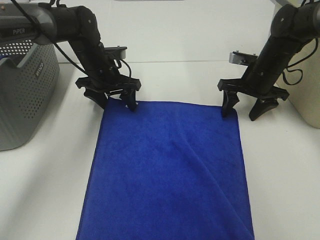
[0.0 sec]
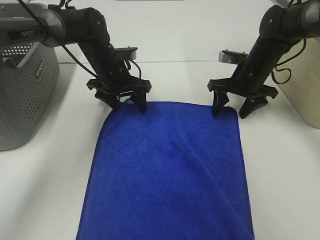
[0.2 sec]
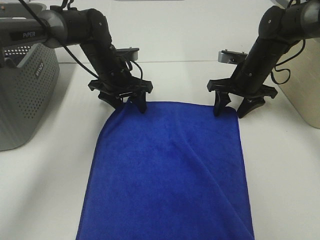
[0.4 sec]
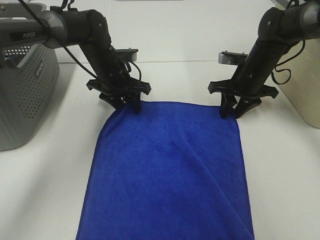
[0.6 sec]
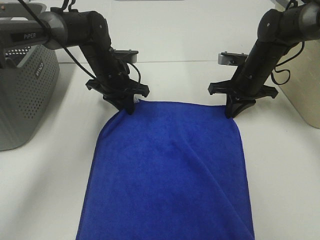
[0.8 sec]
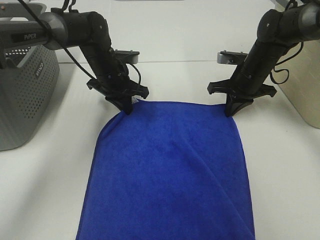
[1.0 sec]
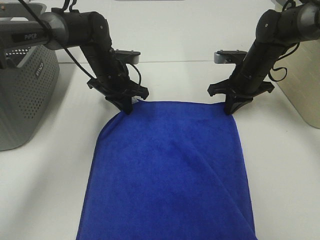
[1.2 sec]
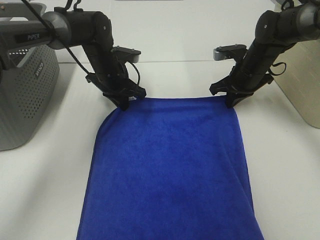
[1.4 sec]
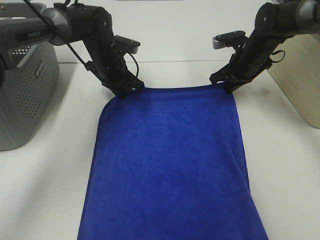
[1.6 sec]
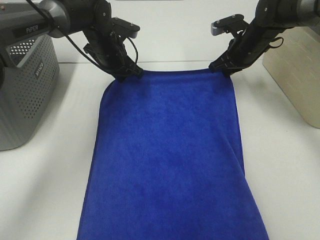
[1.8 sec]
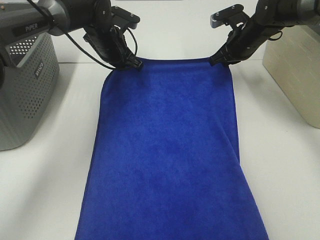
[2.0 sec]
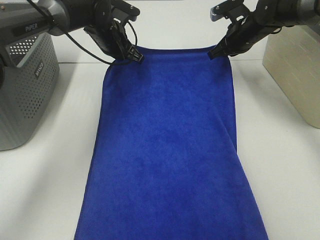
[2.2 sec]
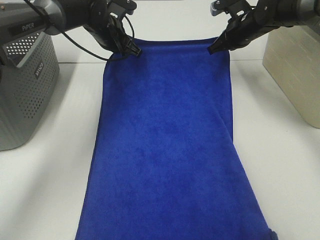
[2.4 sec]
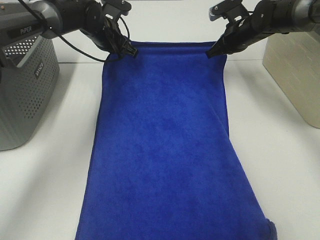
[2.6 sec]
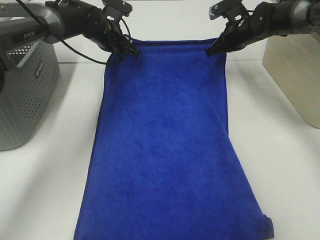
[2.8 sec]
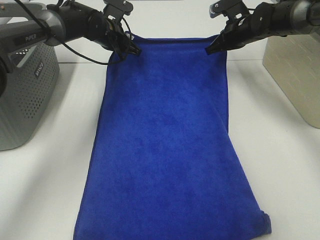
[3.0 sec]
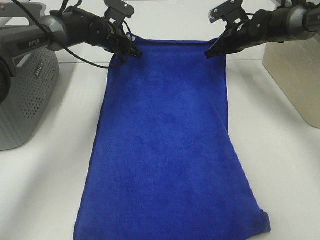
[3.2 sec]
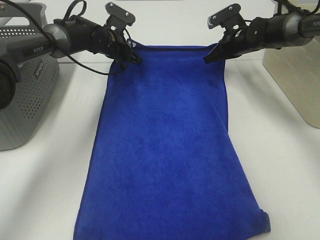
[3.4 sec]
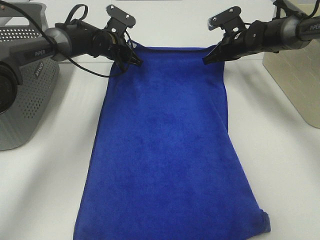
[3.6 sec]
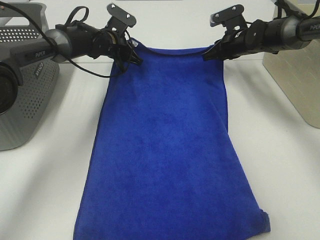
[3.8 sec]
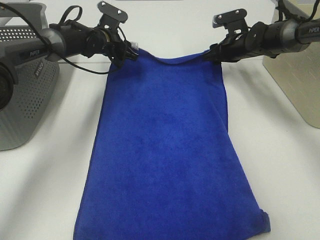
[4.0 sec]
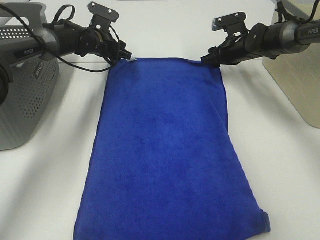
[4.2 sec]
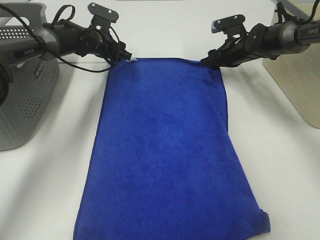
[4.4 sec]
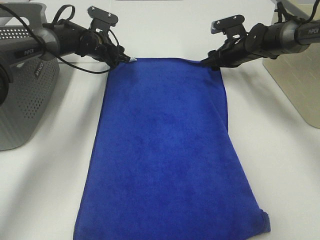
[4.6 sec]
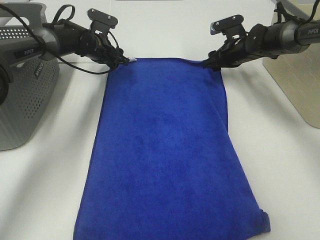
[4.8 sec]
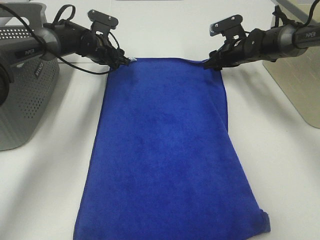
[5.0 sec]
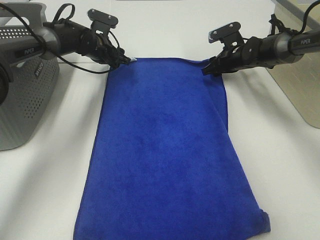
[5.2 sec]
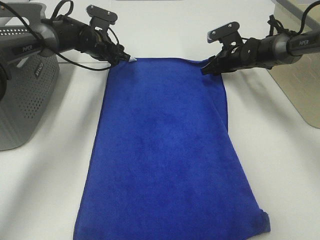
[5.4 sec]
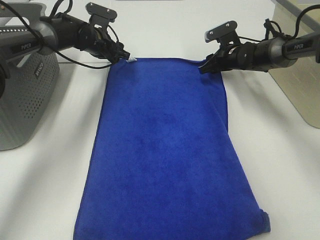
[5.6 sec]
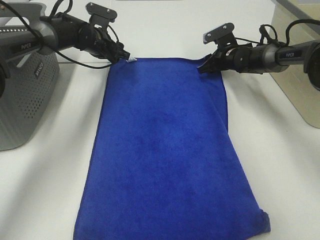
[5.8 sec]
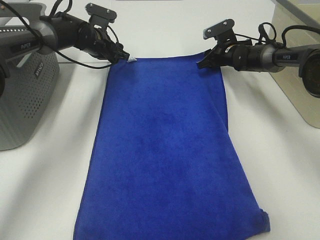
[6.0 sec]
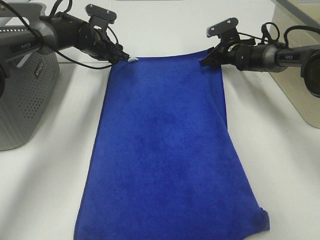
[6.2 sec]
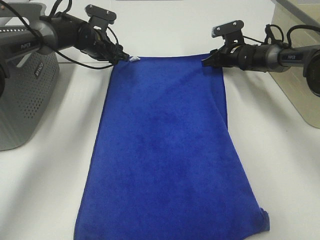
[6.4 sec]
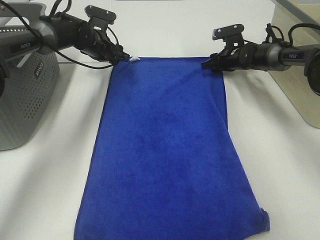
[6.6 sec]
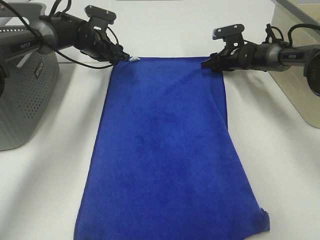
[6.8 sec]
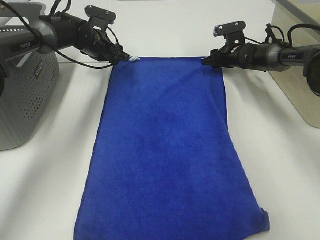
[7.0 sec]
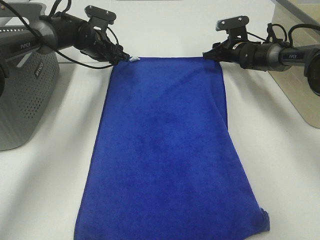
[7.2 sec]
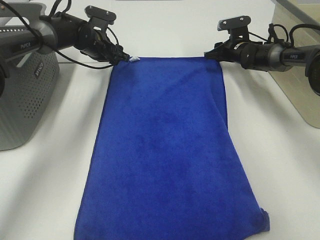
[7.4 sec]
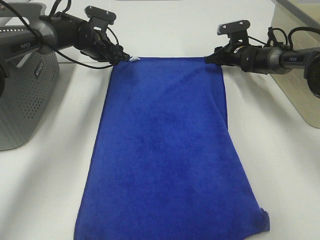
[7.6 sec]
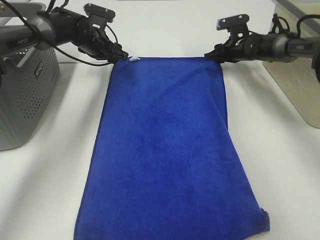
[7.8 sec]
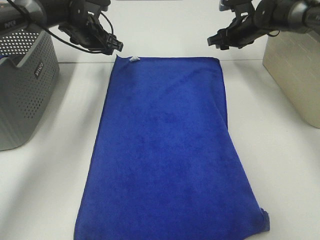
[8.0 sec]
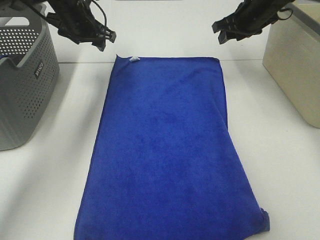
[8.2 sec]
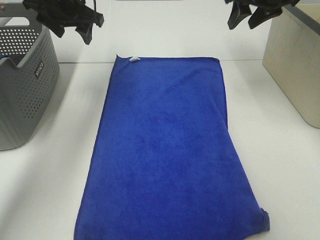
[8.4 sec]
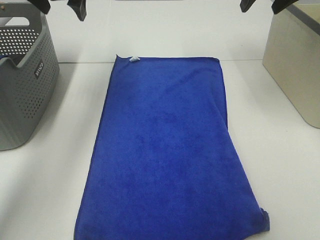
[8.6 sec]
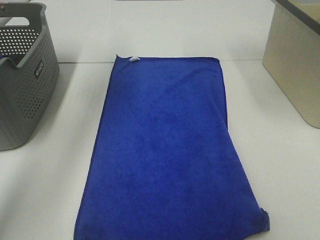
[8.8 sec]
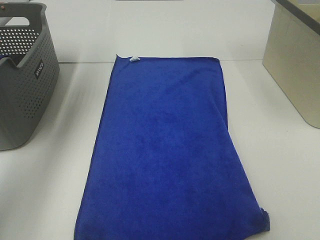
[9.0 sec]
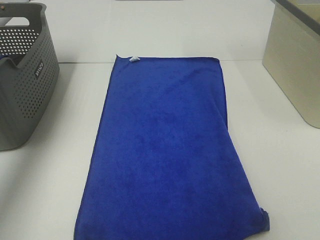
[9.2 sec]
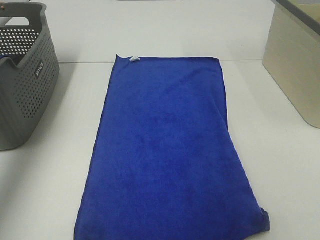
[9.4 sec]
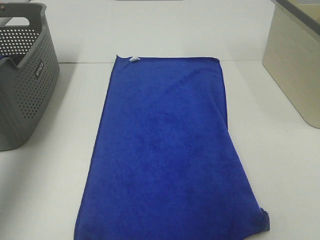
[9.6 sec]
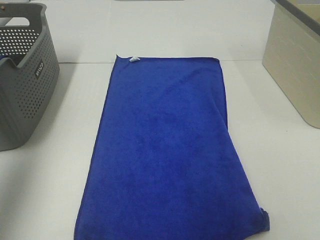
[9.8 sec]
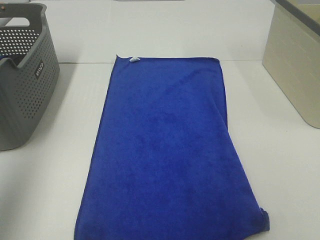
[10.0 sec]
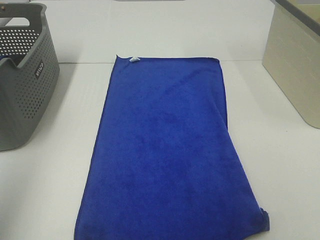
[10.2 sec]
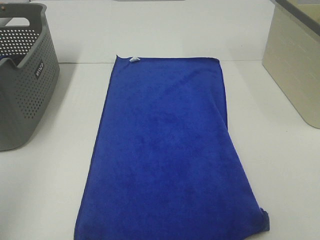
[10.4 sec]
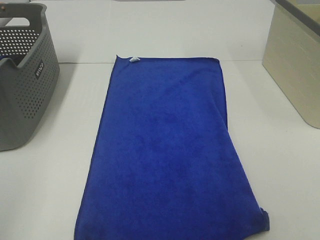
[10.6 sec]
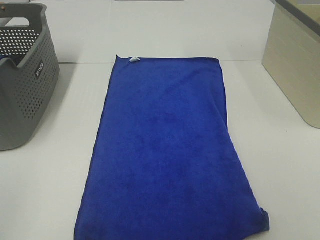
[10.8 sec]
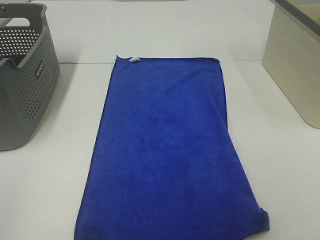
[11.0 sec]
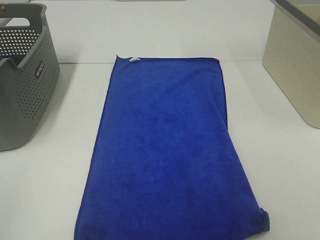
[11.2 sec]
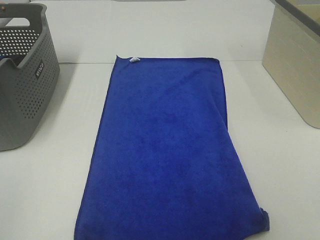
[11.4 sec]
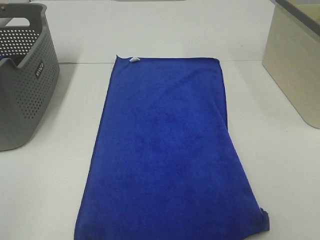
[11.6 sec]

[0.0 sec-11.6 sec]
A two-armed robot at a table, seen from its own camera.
Task of the whole recording: Remove the towel and place it.
0.0 sec to 1.4 sec: The left gripper closes, while the right gripper closes.
1.4 sec to 2.8 sec: Both grippers travel together forward, roughly 5 cm.
2.8 sec to 4.4 sec: The left gripper shifts by about 5 cm, and opens its fingers. Meanwhile the right gripper moves some 5 cm, and opens up.
4.4 sec to 7.2 sec: The grippers move only a little.
7.2 sec to 8.8 sec: Both grippers move upward and backward, some 30 cm.
8.8 sec to 10.2 sec: The grippers both shift backward by roughly 35 cm.
10.2 sec to 11.6 sec: The left gripper is displaced downward and backward by roughly 15 cm.

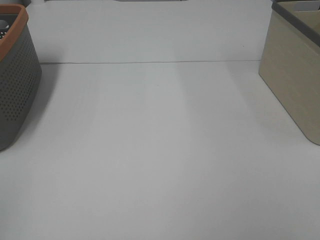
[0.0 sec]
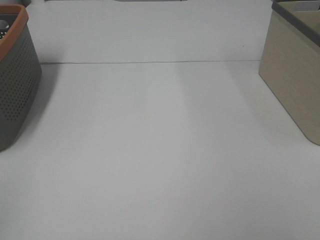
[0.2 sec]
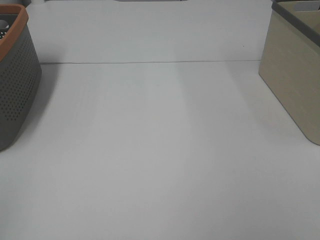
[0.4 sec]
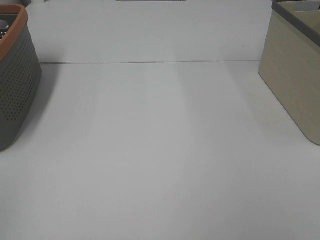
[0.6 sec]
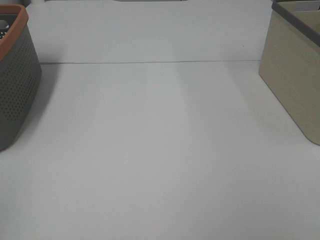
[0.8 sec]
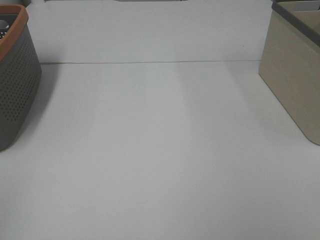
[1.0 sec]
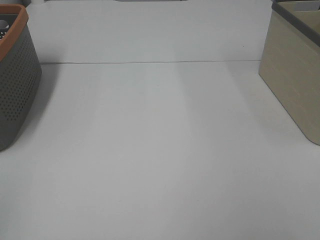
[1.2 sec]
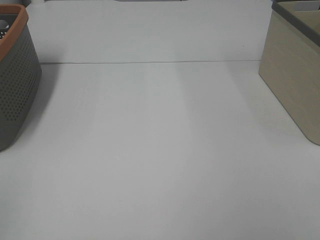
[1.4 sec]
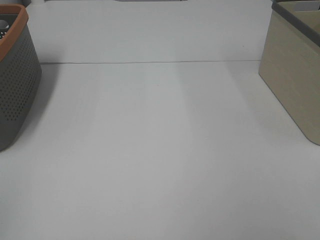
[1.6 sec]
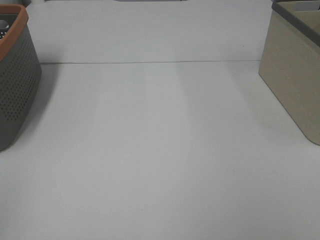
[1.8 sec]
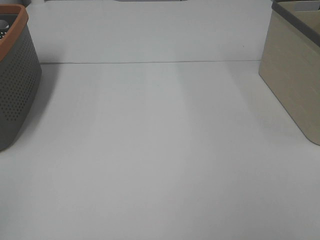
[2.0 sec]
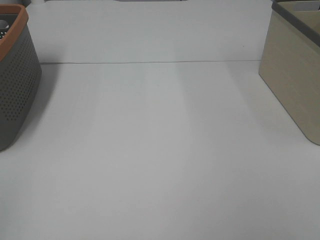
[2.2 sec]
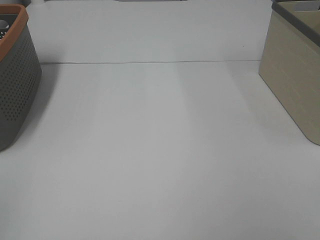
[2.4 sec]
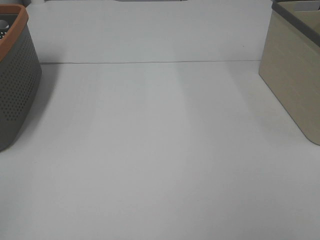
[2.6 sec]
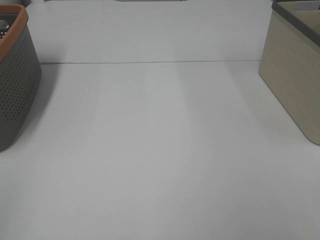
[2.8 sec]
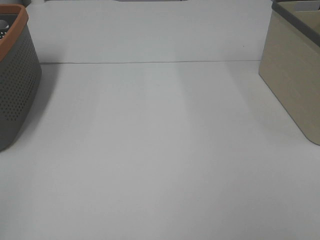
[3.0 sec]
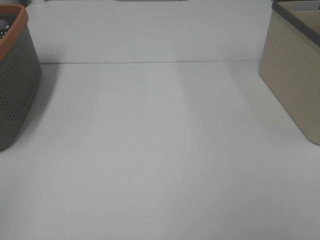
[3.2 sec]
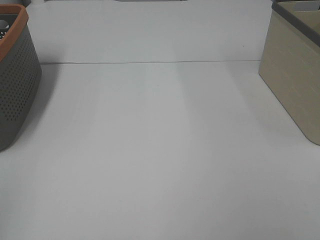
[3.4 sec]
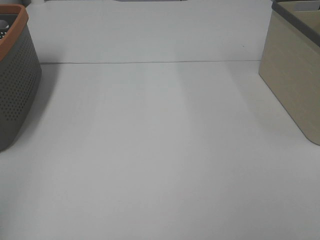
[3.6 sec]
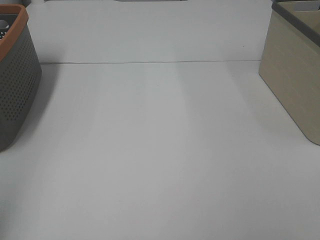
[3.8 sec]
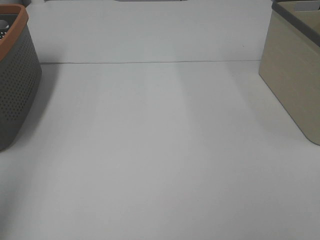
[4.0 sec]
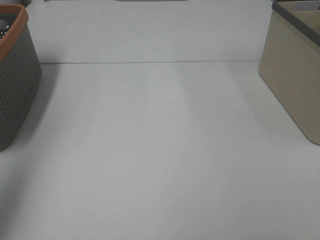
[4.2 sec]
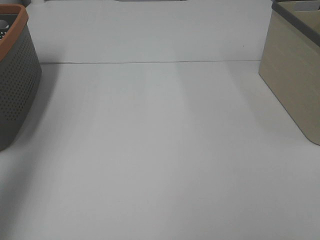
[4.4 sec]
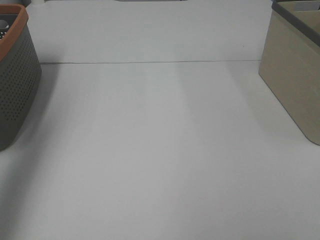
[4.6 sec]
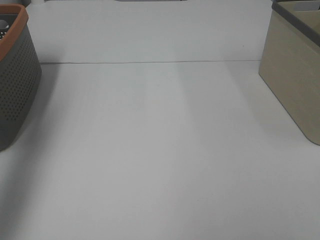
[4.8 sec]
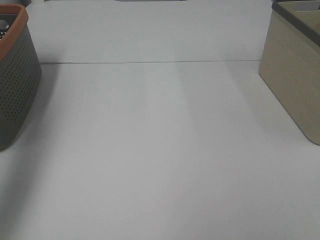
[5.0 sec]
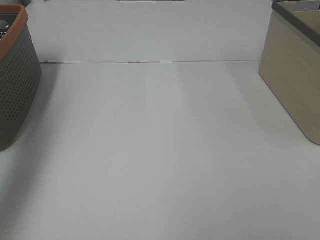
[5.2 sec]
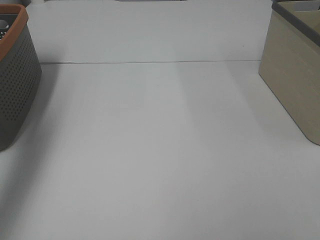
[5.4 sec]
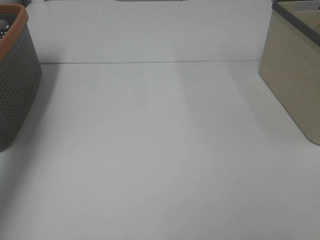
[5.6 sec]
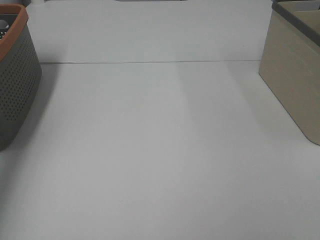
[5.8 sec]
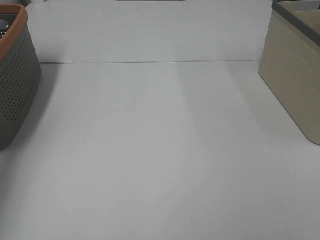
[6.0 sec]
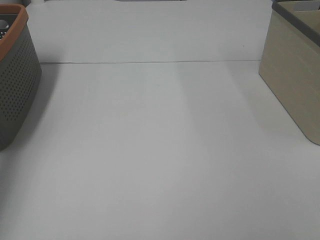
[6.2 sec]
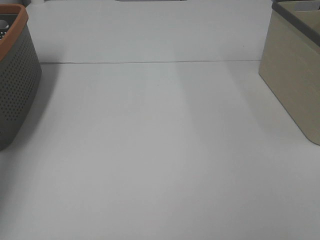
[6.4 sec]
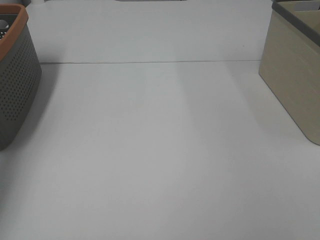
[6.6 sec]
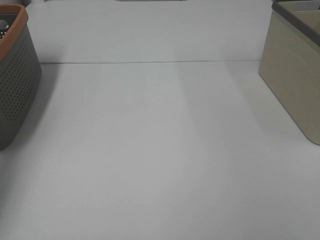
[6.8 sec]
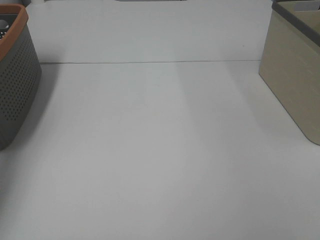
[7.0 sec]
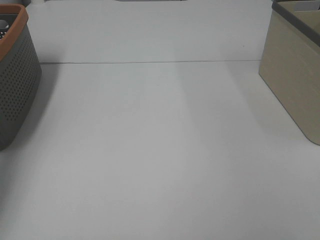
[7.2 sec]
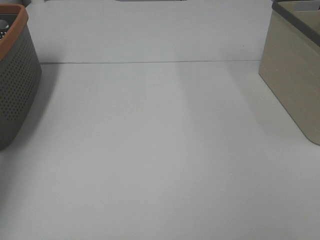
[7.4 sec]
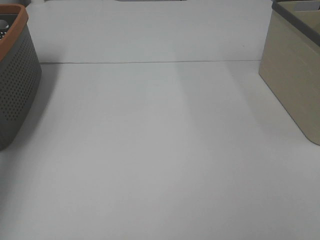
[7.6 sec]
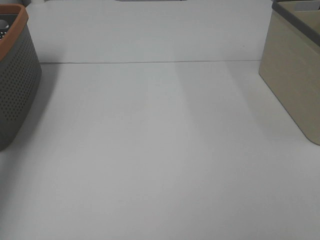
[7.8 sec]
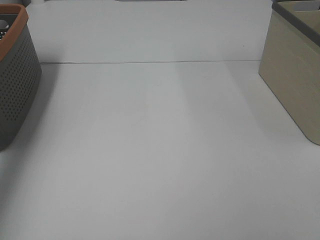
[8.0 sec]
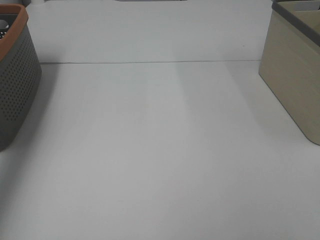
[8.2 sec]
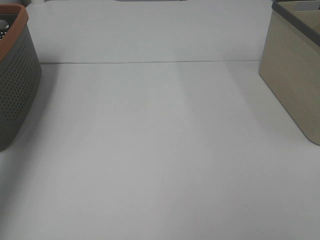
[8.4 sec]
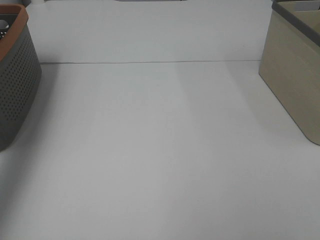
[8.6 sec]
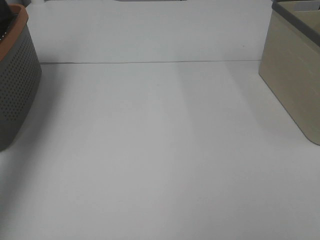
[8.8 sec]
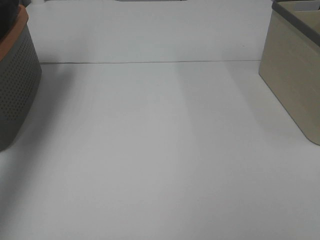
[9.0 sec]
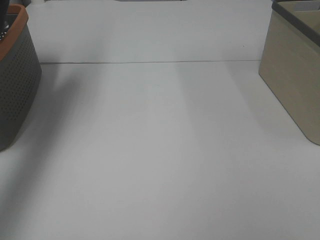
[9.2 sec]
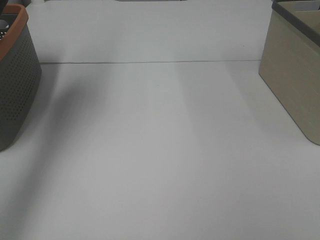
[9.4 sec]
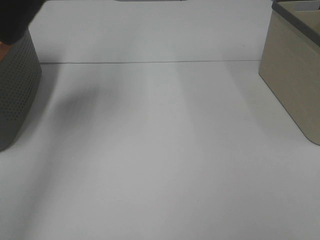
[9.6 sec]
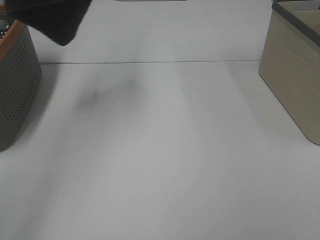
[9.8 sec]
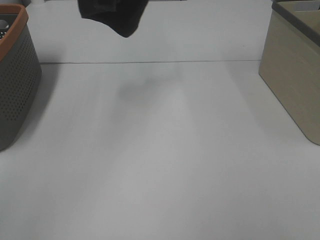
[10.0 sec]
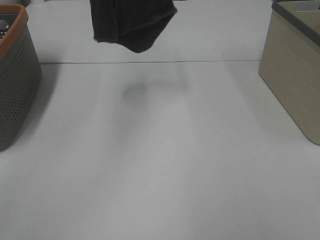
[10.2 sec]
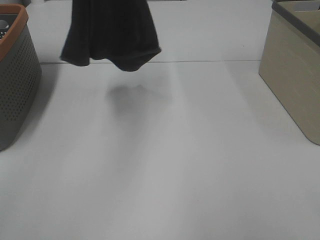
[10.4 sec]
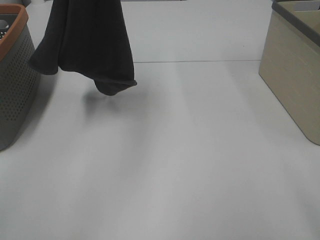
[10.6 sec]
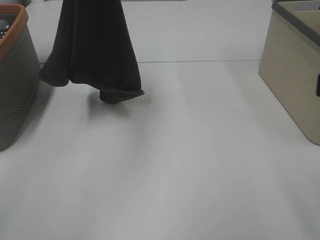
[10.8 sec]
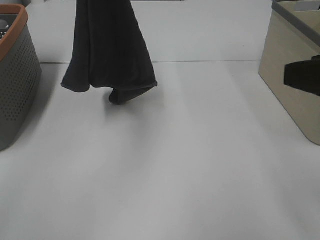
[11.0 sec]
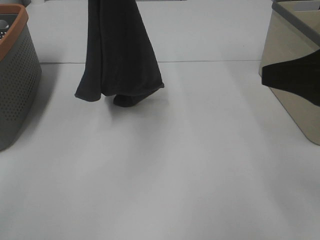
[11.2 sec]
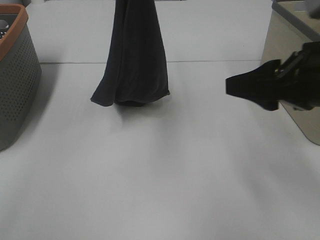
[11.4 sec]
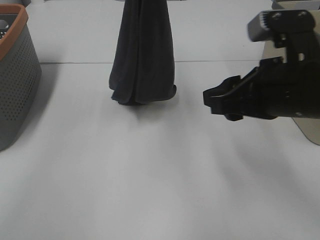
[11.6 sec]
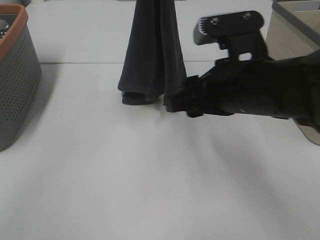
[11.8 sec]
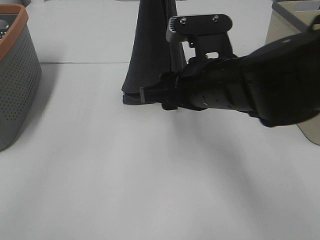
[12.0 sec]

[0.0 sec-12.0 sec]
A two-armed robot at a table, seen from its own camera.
Task of the whole recording: Remove the towel and place it.
0.0 sec to 1.6 sec: Neither gripper changes place.
3.0 sec to 4.4 sec: The left gripper travels forward and upward by about 25 cm.
4.4 sec to 6.0 sec: The left gripper shifts some 30 cm forward and downward.
7.6 sec to 9.0 sec: The left gripper goes about 30 cm upward.
9.0 sec to 10.4 sec: The left gripper shifts approximately 20 cm to the right.
10.4 sec to 12.0 sec: The left gripper goes about 10 cm to the right and downward. Meanwhile the right gripper is displaced forward, to the left and downward by some 30 cm.
